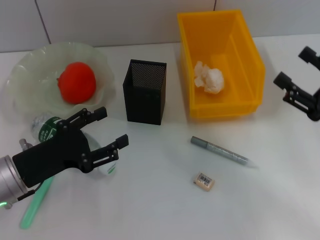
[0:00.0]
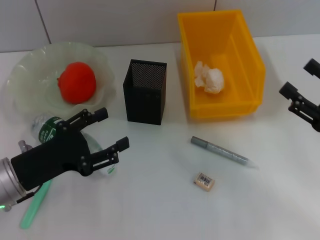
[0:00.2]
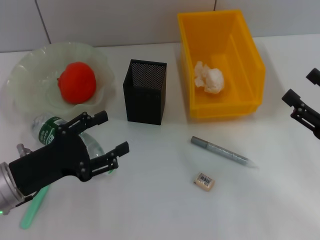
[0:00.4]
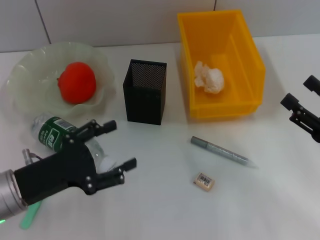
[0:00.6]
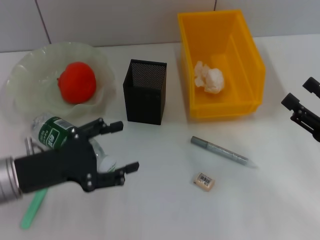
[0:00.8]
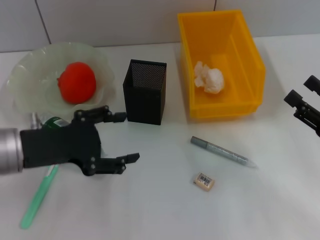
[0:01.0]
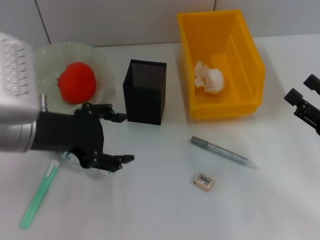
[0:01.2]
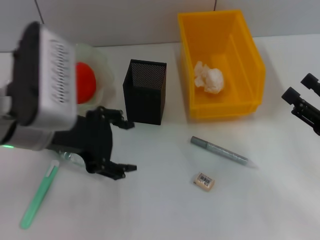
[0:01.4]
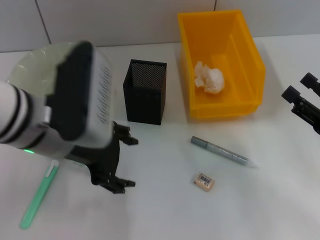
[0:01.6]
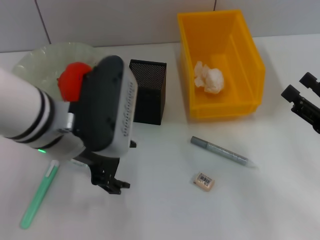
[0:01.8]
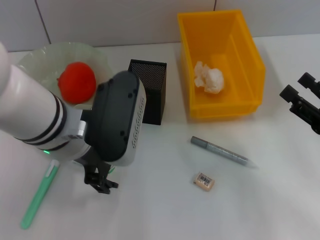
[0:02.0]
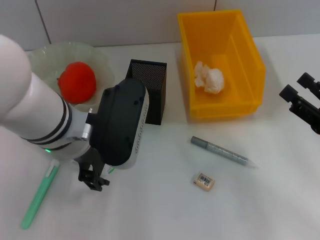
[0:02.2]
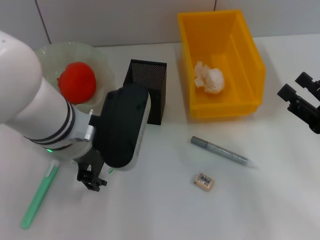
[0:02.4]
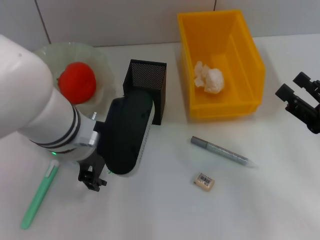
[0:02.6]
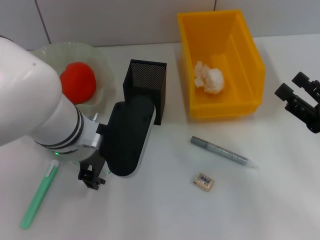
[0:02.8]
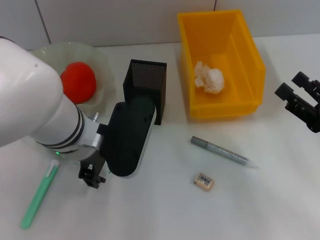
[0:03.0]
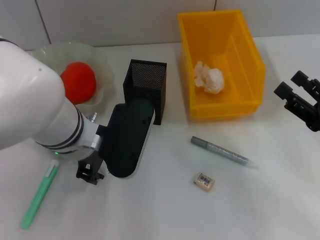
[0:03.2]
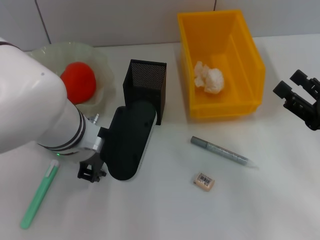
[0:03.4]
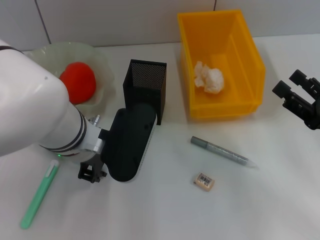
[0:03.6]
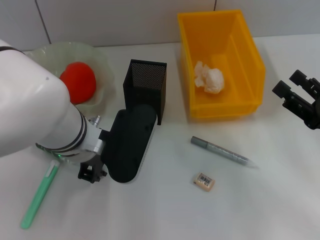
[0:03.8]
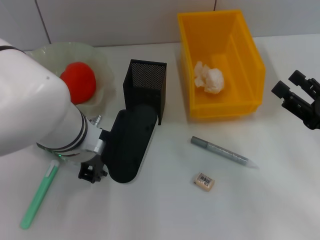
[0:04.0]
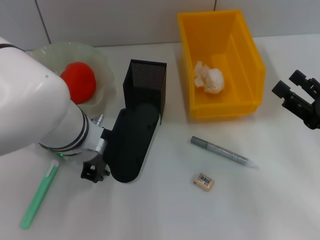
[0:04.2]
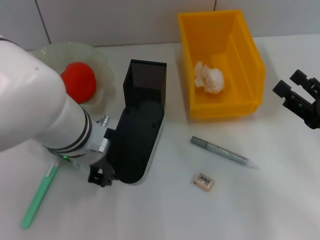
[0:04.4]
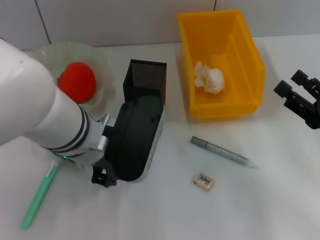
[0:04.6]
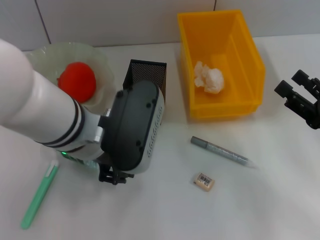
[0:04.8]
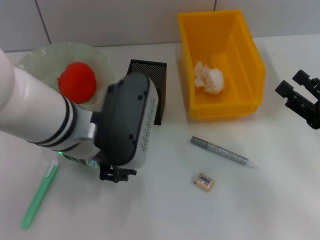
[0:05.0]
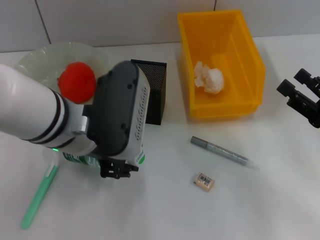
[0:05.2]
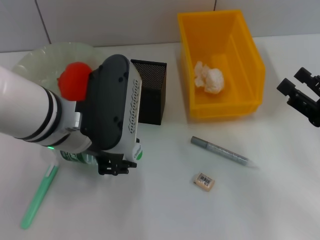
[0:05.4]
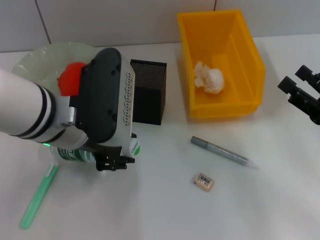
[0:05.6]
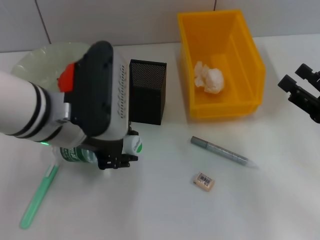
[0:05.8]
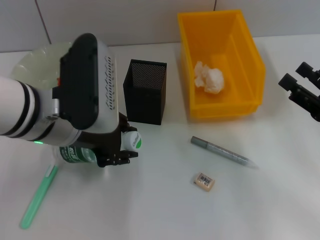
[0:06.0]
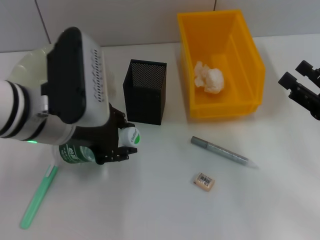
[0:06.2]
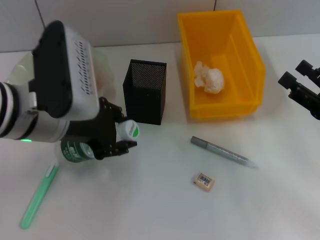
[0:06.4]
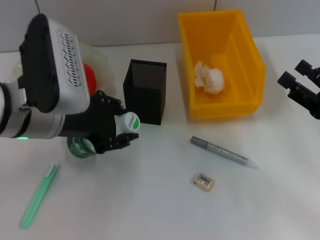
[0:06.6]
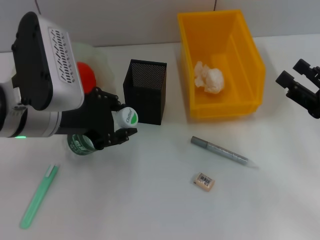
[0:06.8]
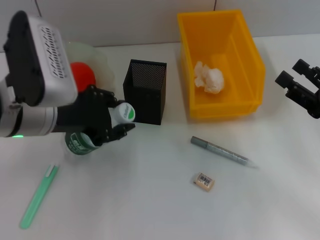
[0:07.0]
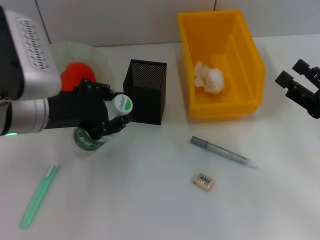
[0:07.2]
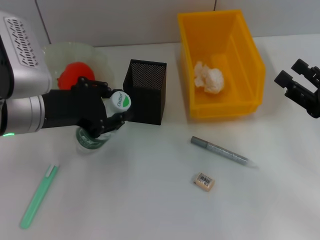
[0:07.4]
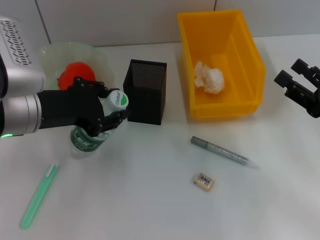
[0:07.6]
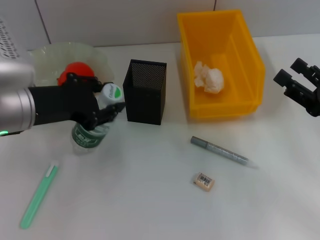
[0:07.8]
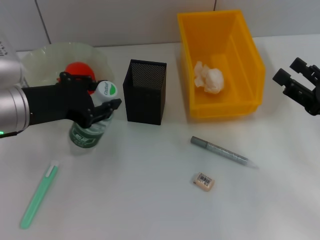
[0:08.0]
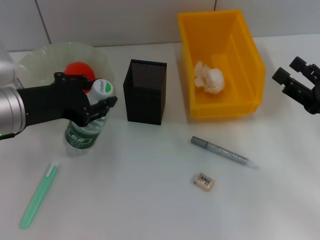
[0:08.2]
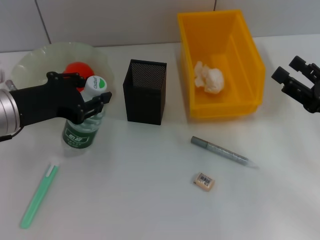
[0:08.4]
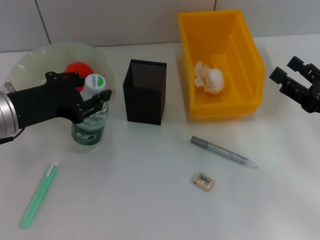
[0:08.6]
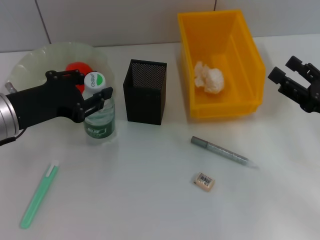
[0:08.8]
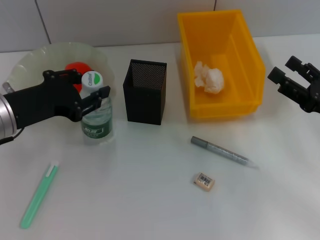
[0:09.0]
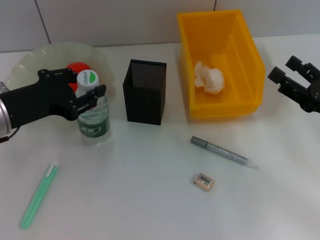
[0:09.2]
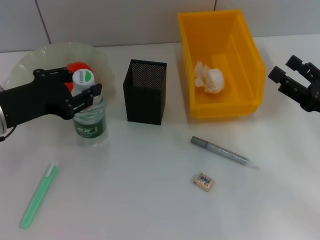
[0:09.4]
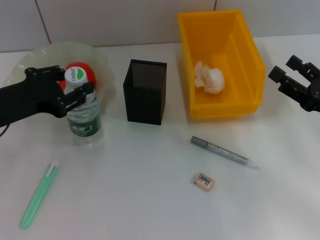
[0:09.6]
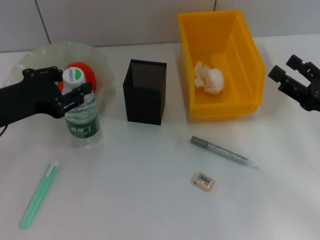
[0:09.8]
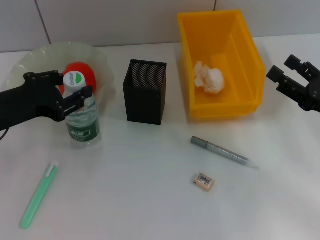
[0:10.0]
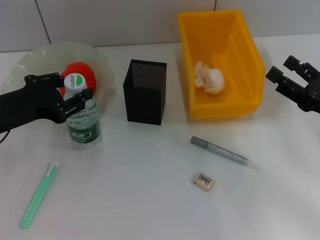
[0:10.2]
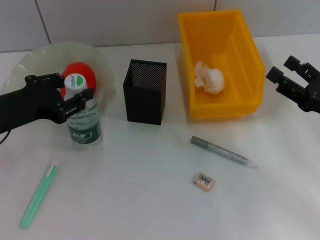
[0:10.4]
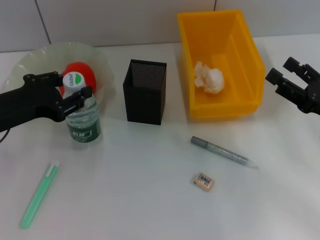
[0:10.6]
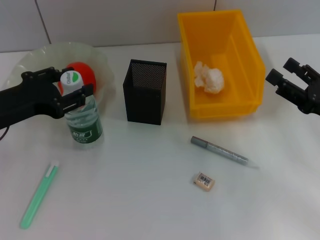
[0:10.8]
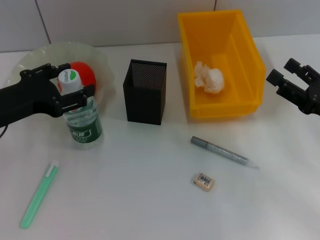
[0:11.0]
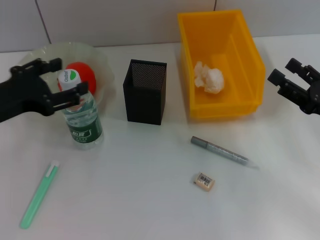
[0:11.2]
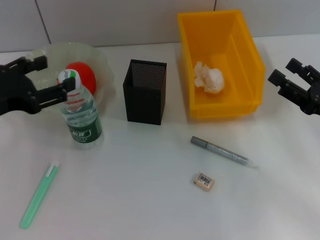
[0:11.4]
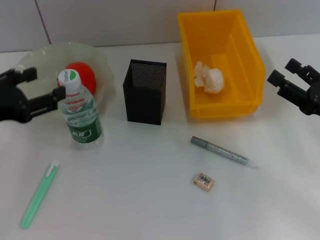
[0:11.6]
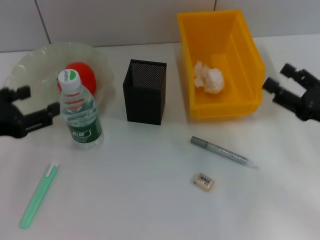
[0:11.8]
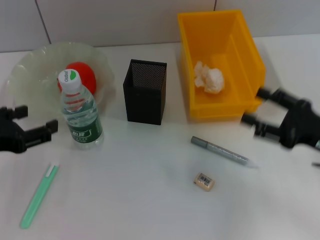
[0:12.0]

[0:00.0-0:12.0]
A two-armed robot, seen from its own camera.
Step, 0:00.0 to 0:03.6: Grab the water bottle with the left hand.
Step, 0:03.8 to 0:10.8: Place the water bottle on the table with the left hand.
0:00.0 to 0:01.6: The left gripper is displaced upward and to the right by some 15 cm.
0:01.6 to 0:03.0: The left gripper moves roughly 5 cm.
0:03.0 to 0:04.4: The left gripper closes up.
0:04.4 to 0:06.0: The left gripper changes place by some 5 cm.
0:06.0 to 0:07.6: The left gripper goes some 5 cm to the left.
0:09.0 to 0:10.4: The grippers move only a little.
0:10.4 to 0:12.0: The left gripper heads backward, covering some 5 cm, and opens up.

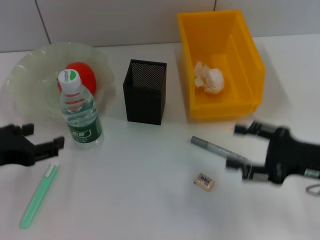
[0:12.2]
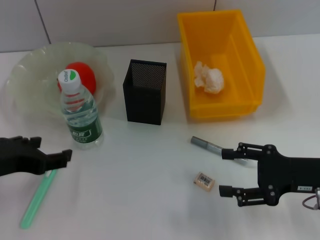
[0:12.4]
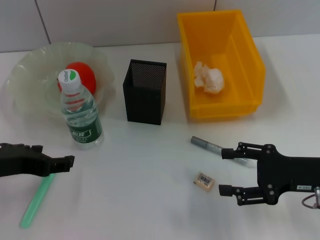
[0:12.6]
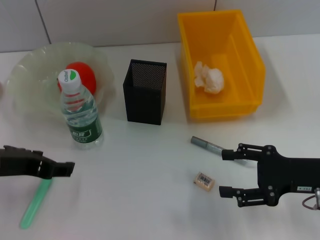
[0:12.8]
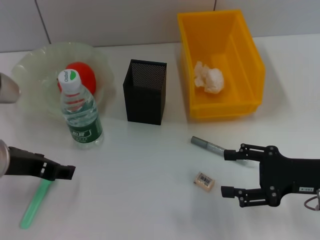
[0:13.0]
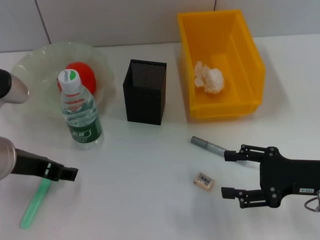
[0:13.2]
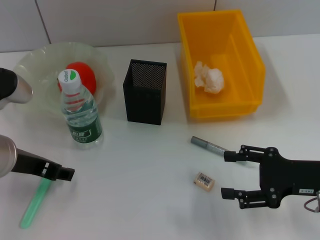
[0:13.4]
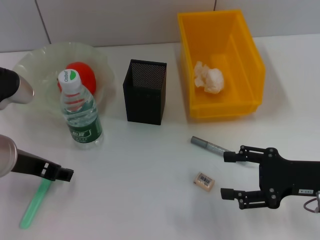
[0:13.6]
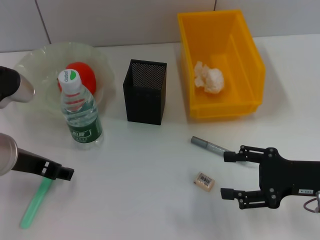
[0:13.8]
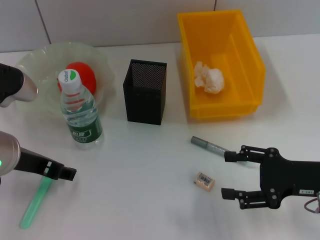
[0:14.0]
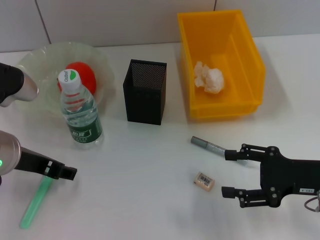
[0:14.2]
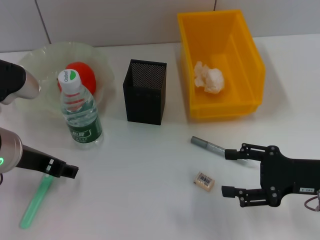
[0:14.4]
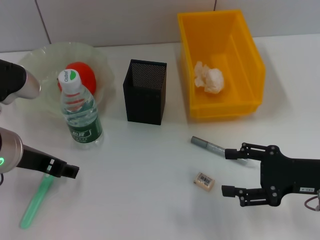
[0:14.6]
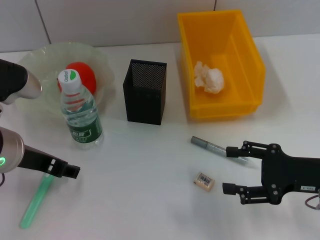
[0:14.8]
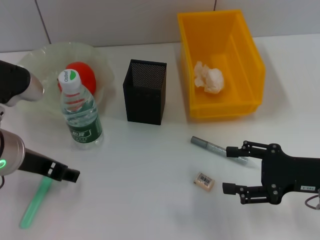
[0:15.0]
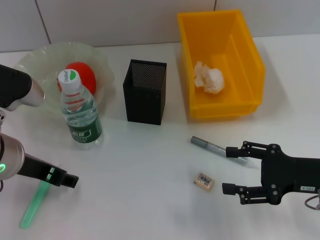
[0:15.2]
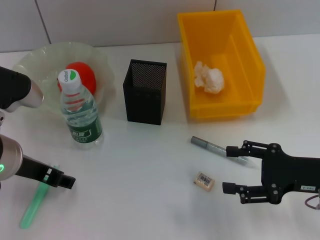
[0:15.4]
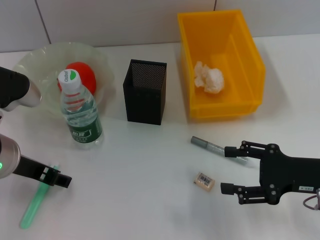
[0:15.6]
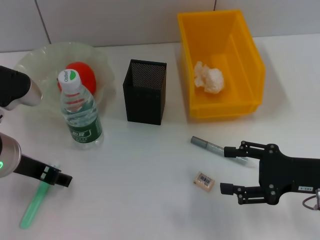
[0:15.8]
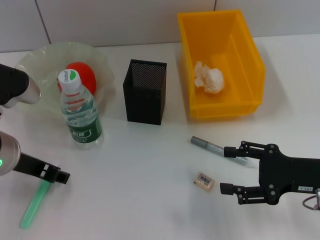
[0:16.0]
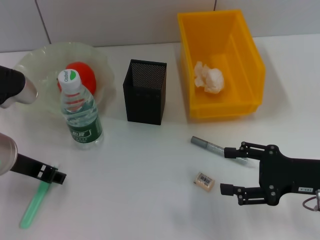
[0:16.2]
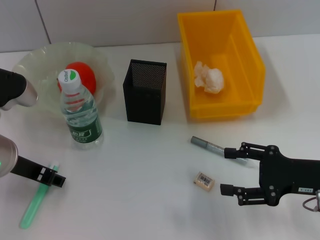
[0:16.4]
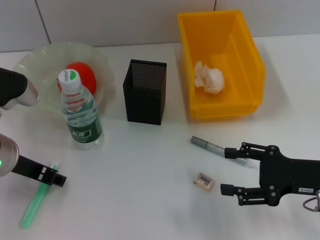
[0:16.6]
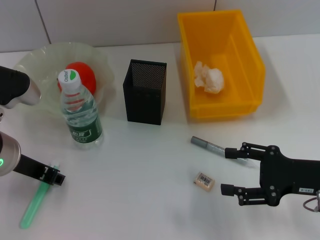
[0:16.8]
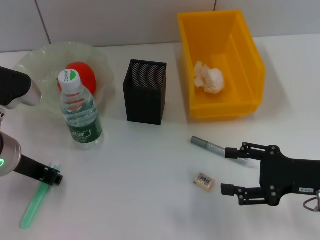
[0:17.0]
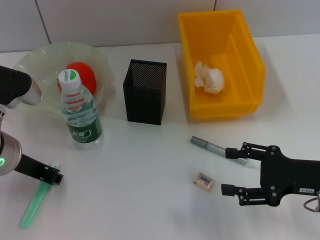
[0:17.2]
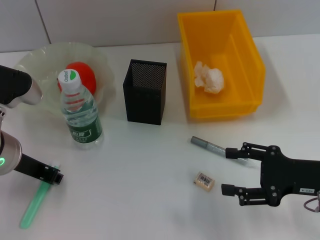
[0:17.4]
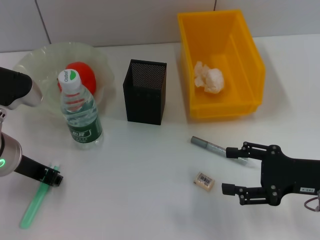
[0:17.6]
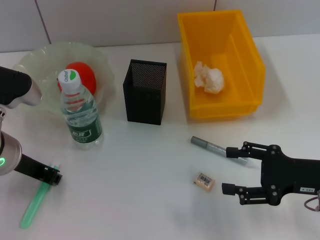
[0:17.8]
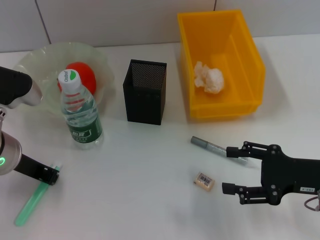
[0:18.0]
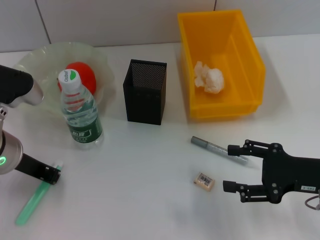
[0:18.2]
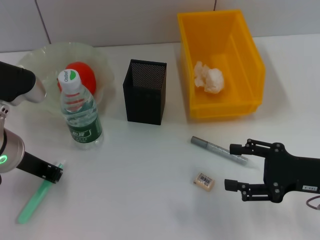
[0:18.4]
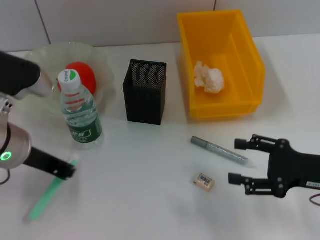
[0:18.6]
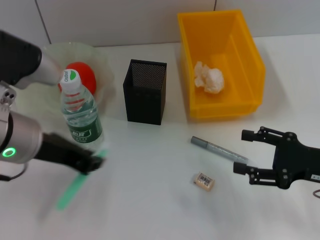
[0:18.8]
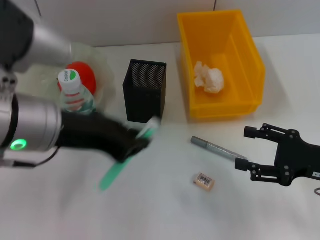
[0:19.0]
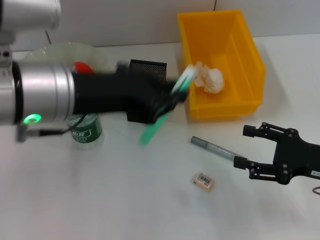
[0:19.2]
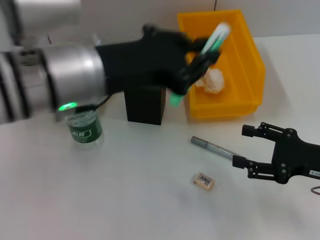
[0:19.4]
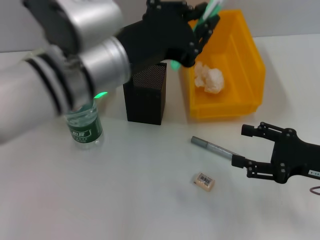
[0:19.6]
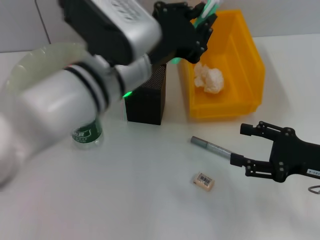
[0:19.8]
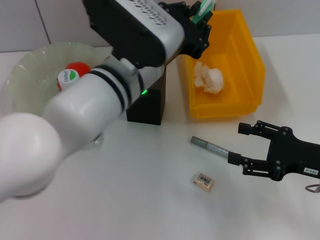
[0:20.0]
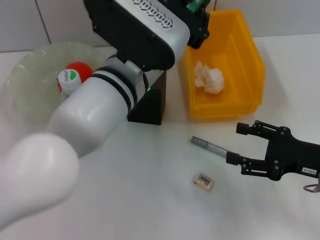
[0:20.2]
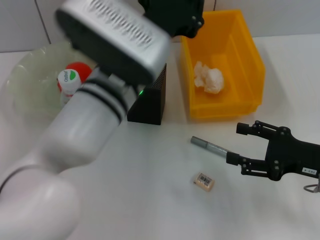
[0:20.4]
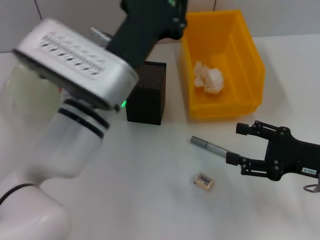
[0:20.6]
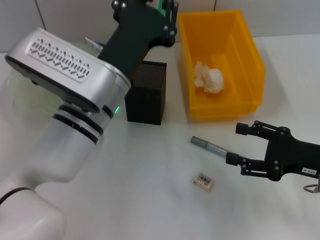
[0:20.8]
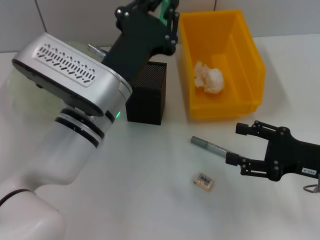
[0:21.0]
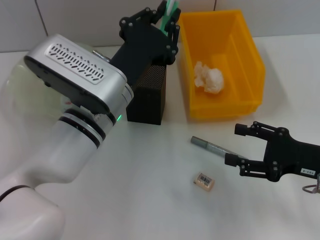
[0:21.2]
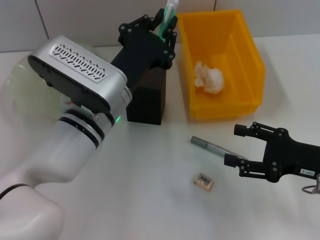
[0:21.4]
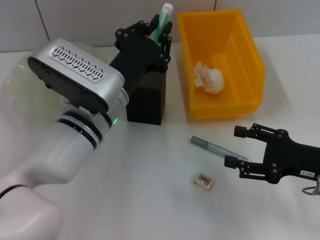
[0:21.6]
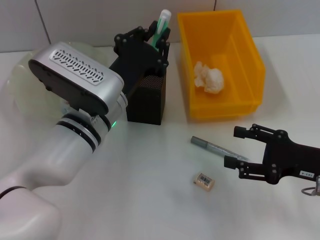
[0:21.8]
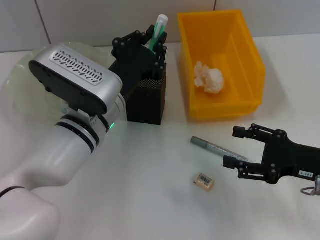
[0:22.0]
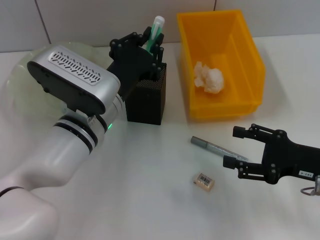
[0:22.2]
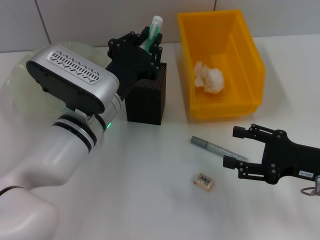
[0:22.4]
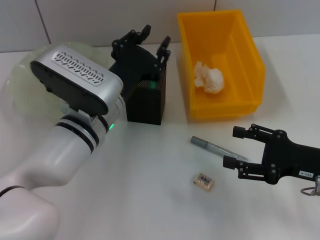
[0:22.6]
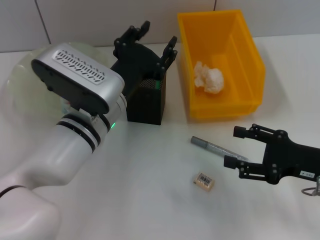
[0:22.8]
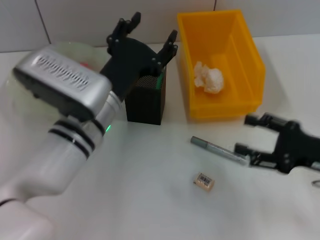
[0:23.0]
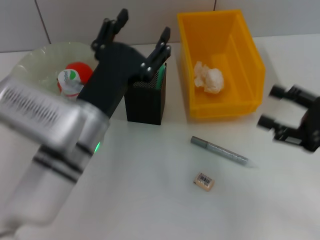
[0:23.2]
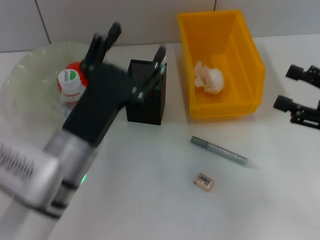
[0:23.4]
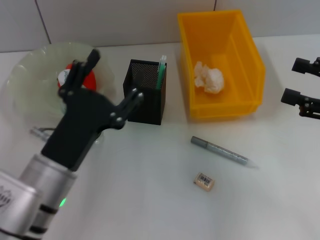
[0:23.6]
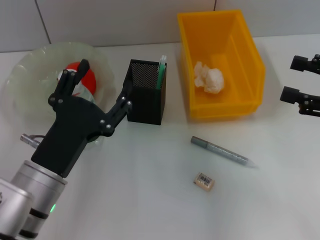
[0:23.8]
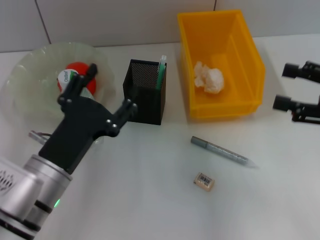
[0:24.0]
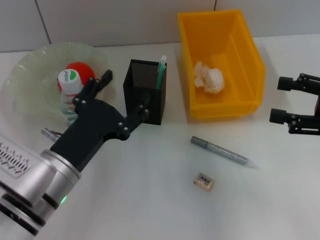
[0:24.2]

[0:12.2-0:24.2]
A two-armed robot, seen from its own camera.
Step, 0:12.2 to 0:17.6: Grab the blue utility knife with the left hand.
Step, 0:17.8 to 0:22.6: Place the blue utility knife into the pen holder with the left hand.
0:12.2 to 0:13.8: The left gripper travels to the right by some 5 cm.
0:13.8 to 0:15.2: Both grippers stay put.
0:15.2 to 0:16.6: The grippers make only small movements.
0:16.6 to 0:18.2: The left gripper closes up.
0:18.2 to 0:19.8: The left gripper moves to the right, roughly 15 cm.
0:19.8 to 0:21.2: The left gripper heads downward, covering approximately 5 cm.
0:21.2 to 0:22.6: The grippers move only a little.
0:22.6 to 0:24.2: The right gripper moves upward, roughly 10 cm. Meanwhile the left gripper goes approximately 10 cm backward and to the left, and opens its fingers.
